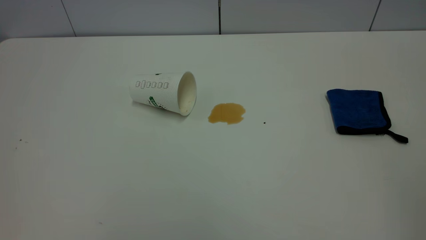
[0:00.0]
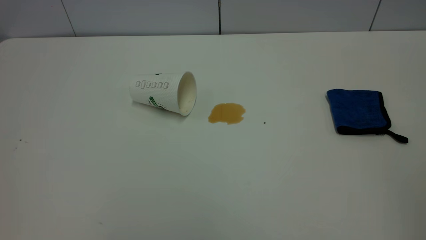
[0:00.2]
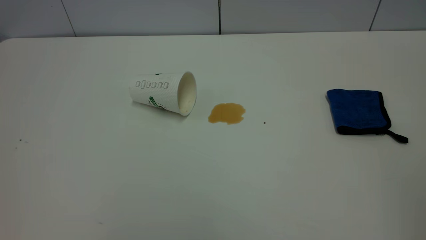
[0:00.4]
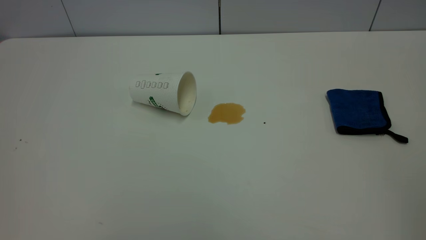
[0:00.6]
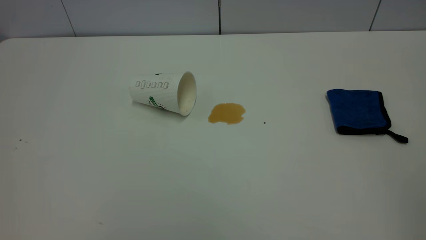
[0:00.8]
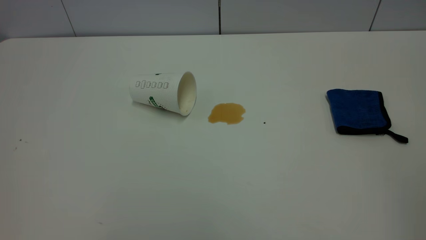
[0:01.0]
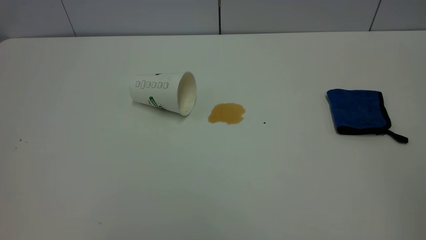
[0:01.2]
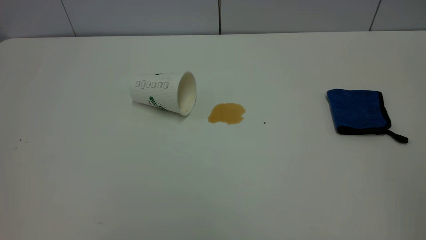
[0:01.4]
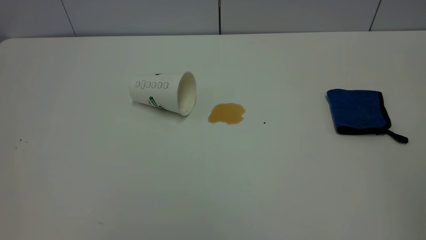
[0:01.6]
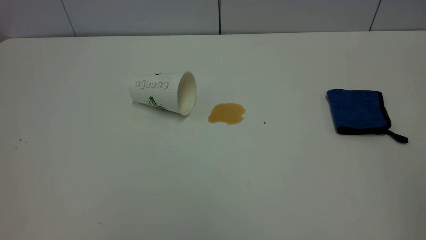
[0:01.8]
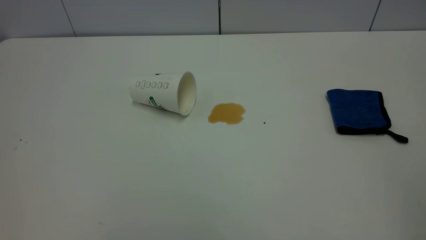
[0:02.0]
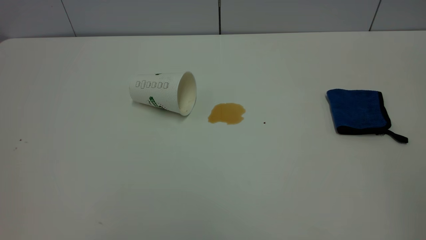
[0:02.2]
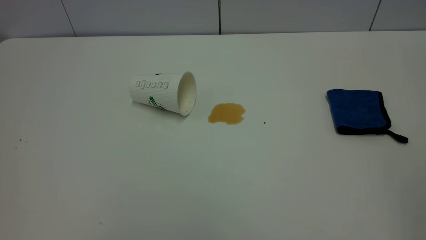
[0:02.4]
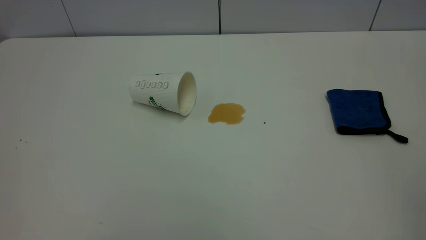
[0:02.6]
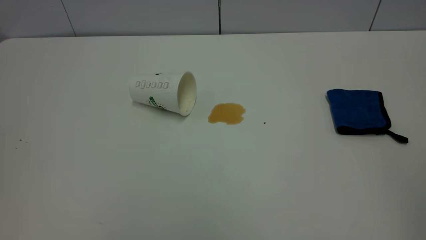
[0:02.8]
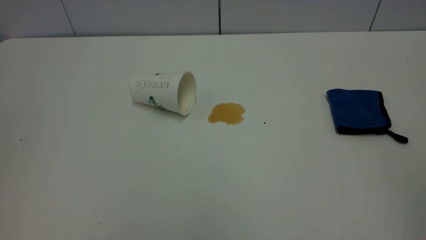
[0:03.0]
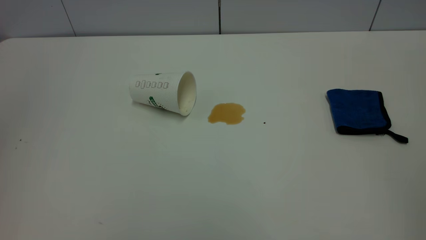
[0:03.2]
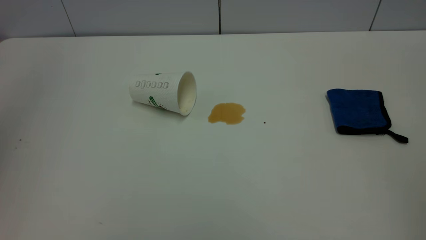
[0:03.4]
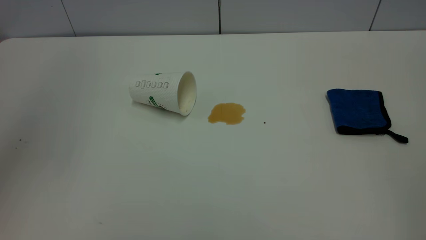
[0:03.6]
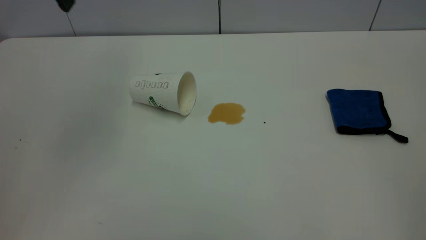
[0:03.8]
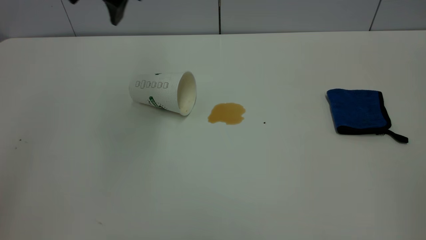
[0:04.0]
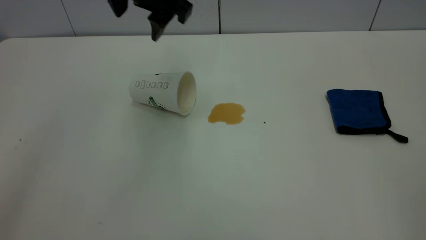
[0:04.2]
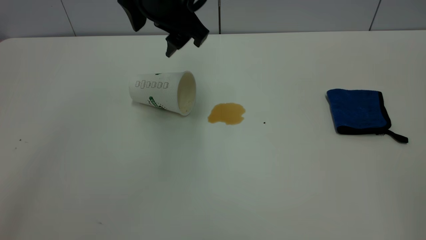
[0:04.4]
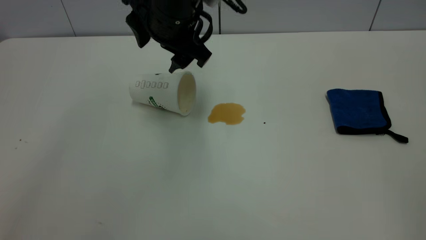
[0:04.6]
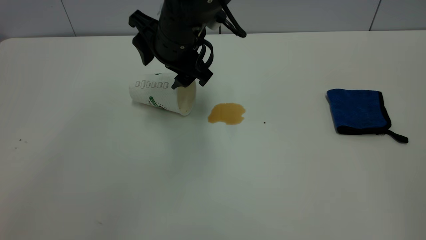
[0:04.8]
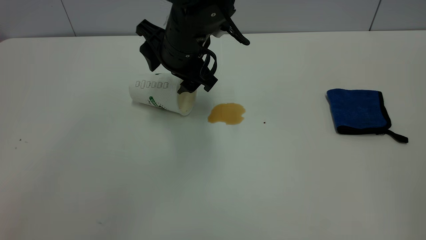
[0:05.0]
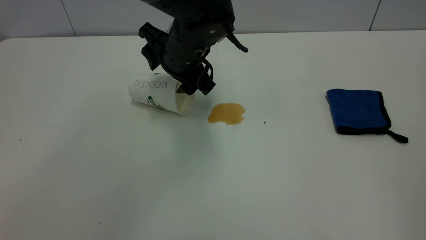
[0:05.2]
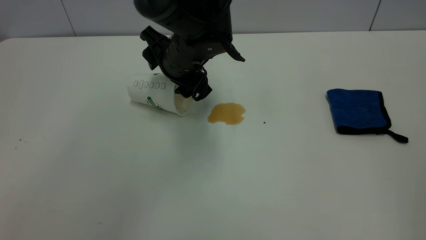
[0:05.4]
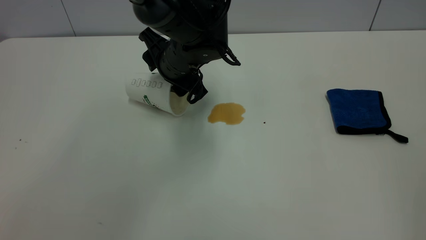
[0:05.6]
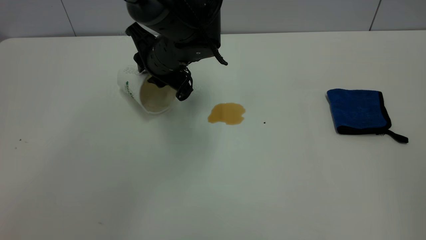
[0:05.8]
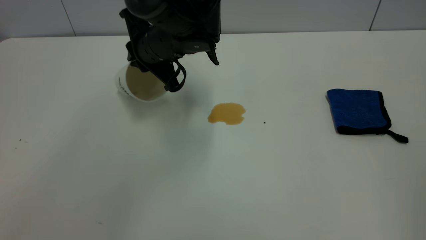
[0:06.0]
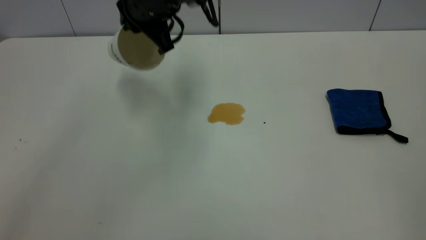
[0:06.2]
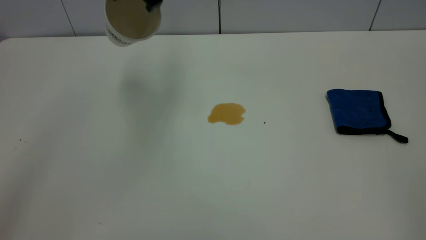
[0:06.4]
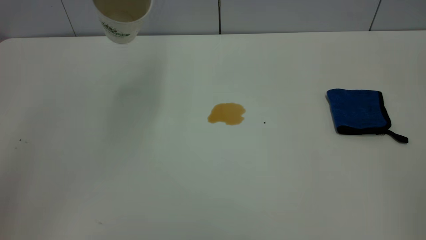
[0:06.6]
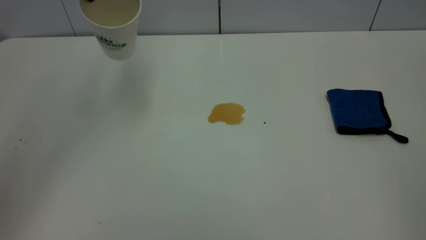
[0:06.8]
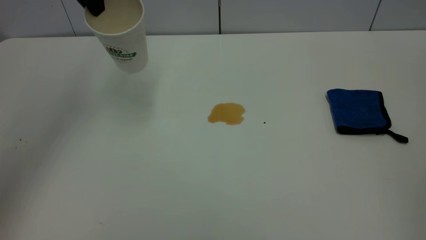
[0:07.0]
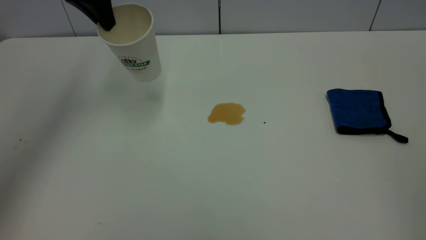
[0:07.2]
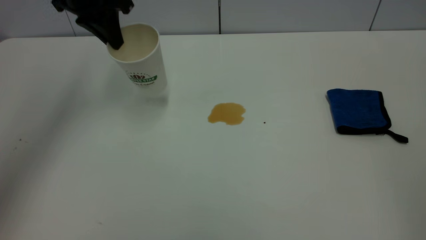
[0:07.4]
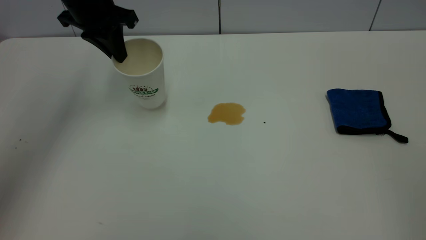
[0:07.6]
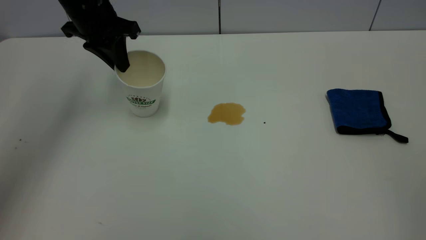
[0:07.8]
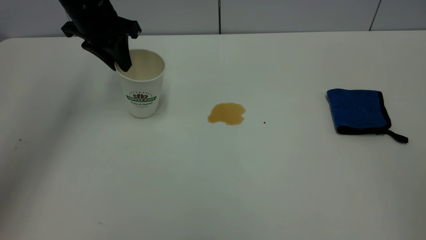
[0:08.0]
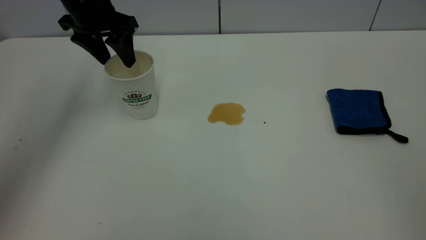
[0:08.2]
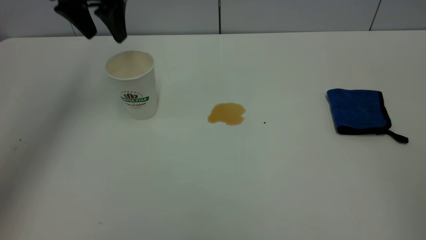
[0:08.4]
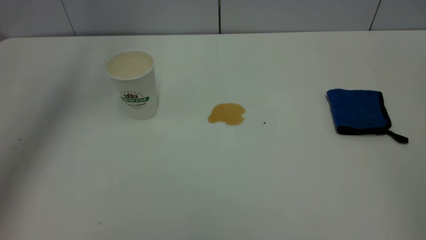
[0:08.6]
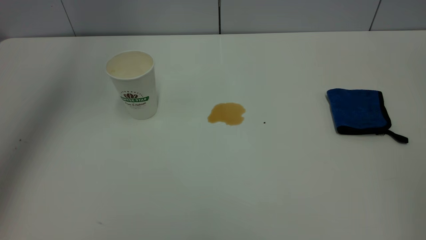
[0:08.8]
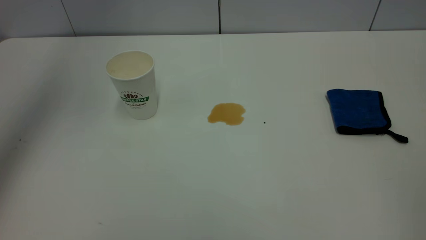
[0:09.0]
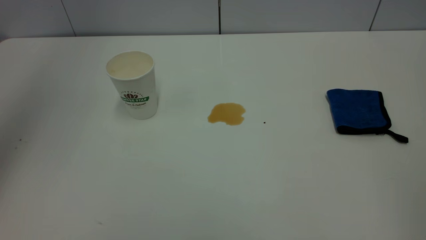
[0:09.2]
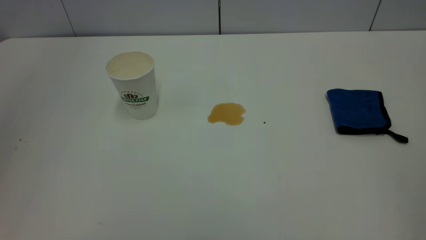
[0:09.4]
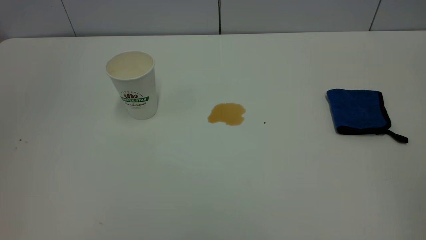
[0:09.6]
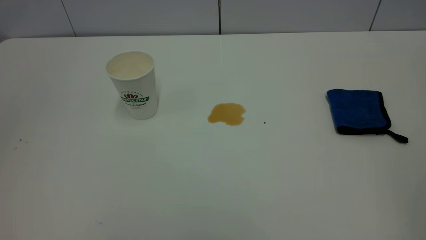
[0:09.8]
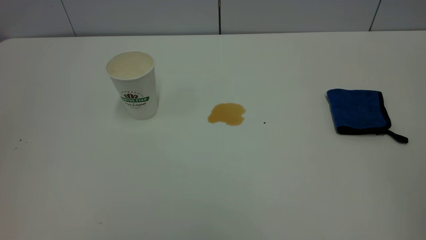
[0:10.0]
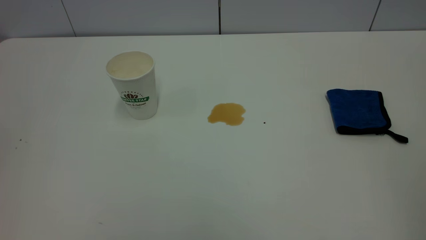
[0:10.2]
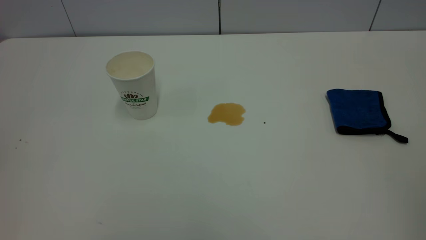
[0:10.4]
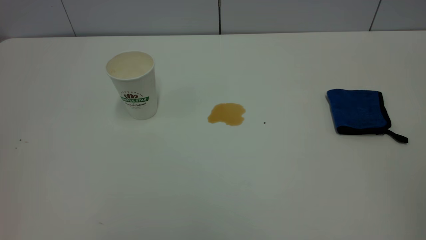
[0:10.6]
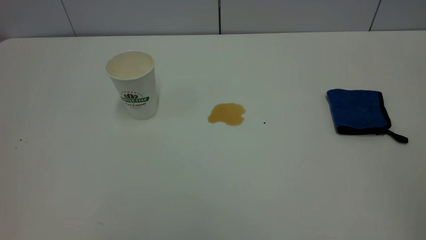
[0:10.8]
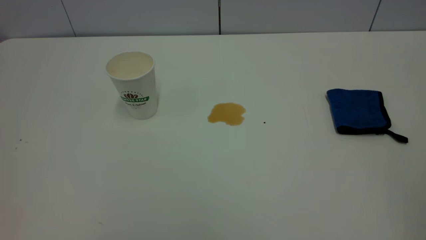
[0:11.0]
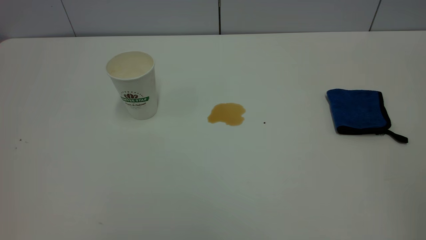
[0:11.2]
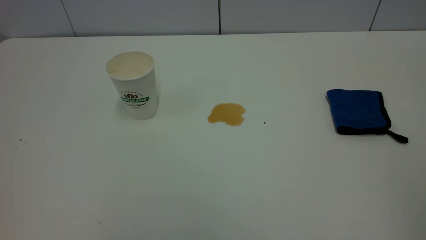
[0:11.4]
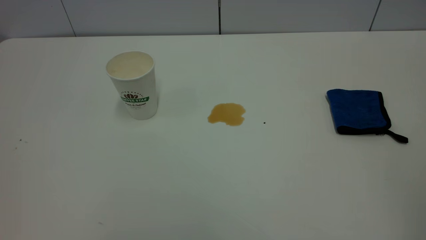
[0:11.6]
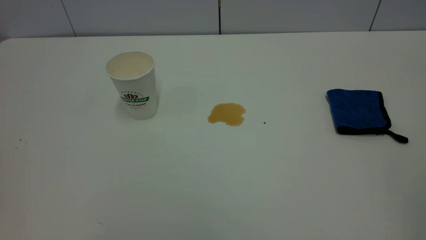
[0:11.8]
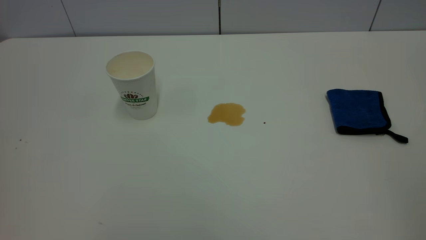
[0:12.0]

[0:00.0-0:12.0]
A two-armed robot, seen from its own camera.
Task of the whole recording: the left gripper pick up the fallen cup and place it upright, the right gripper grasp the blue rag and wipe the tea stain on the table, the right gripper put the blue rag back in its original position.
Step, 0:00.0 to 0:08.2: Stand the paper cup upright.
0:00.0 to 0:01.6: Both grippers stay put.
0:03.0 to 0:04.4: The left gripper is displaced forward, to the right and downward by about 40 cm.
0:04.4 to 0:06.0: The left gripper is displaced downward by some 10 cm, and closes up.
0:06.0 to 0:07.6: The left gripper goes roughly 15 cm to the left, and moves roughly 20 cm upward and comes back.
0:07.6 to 0:09.0: The left gripper heads upward, covering roughly 25 cm, and opens up.
0:09.0 to 0:10.4: The left gripper travels backward by about 35 cm.

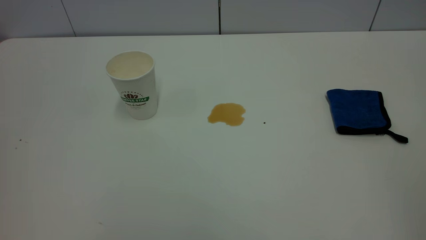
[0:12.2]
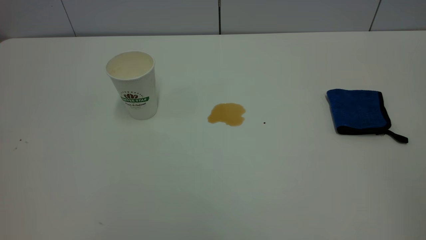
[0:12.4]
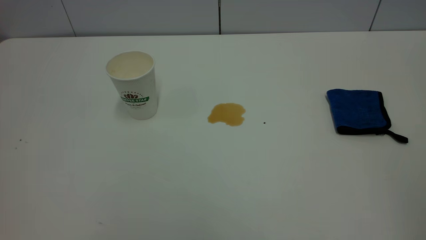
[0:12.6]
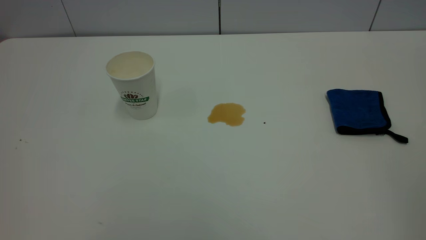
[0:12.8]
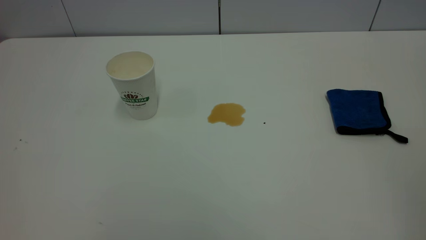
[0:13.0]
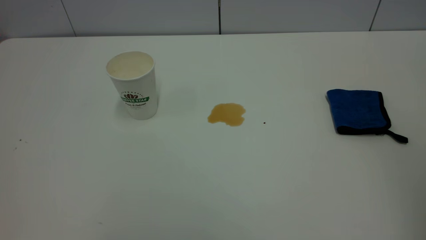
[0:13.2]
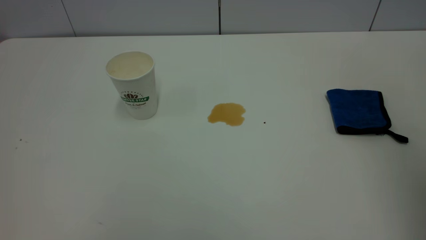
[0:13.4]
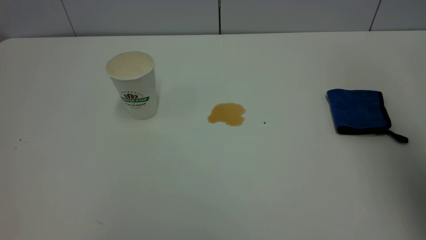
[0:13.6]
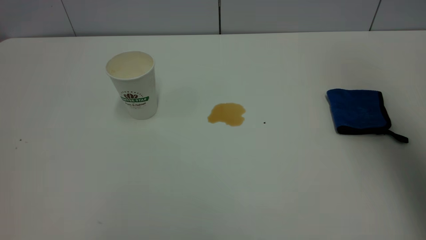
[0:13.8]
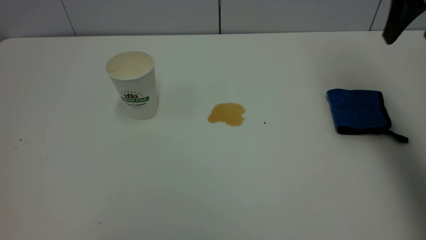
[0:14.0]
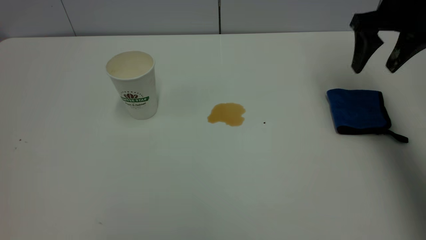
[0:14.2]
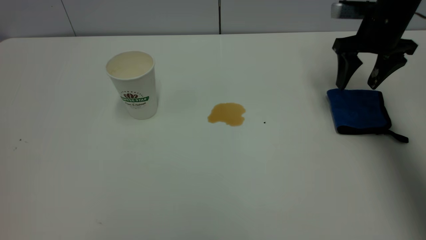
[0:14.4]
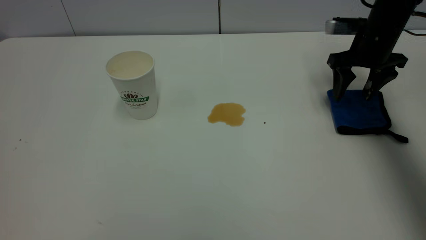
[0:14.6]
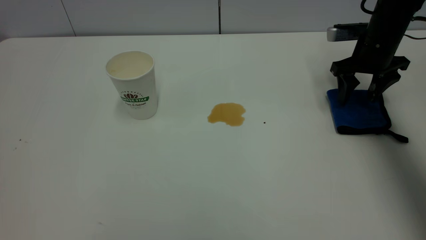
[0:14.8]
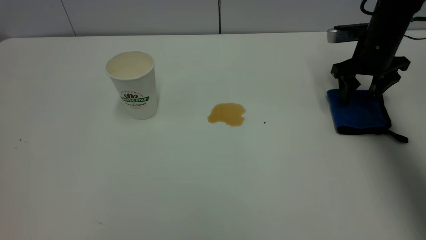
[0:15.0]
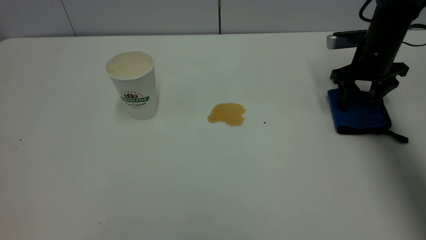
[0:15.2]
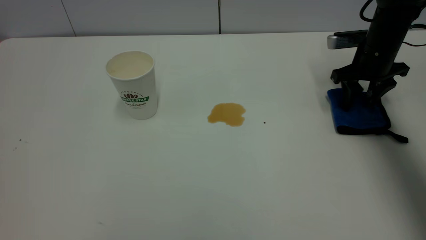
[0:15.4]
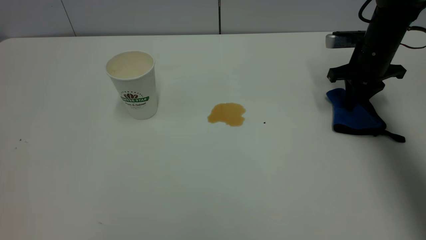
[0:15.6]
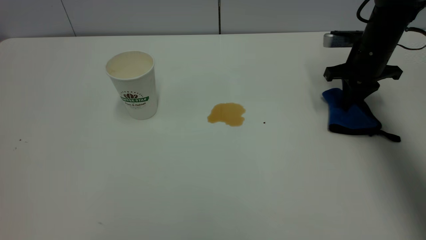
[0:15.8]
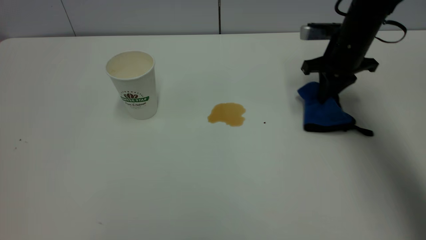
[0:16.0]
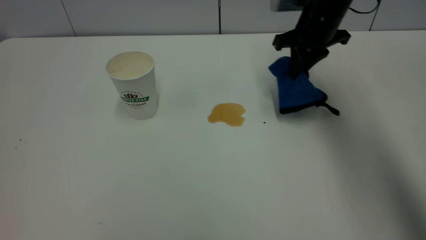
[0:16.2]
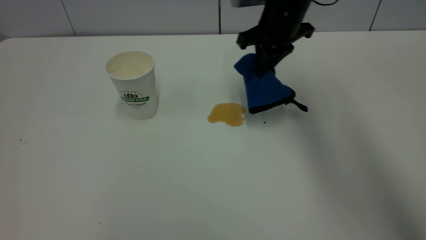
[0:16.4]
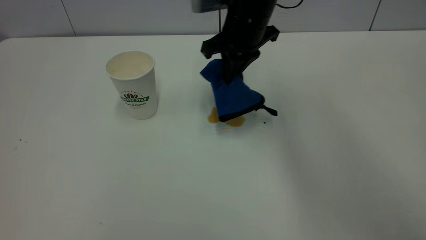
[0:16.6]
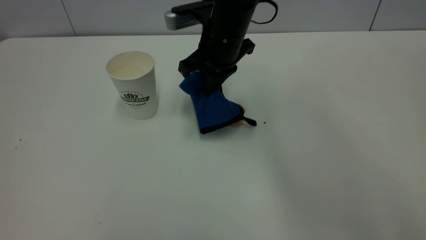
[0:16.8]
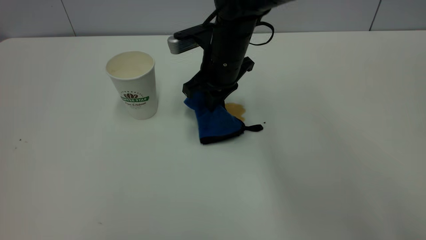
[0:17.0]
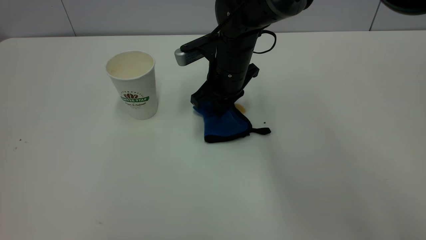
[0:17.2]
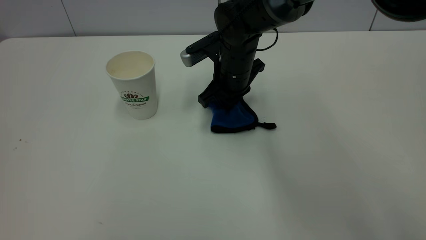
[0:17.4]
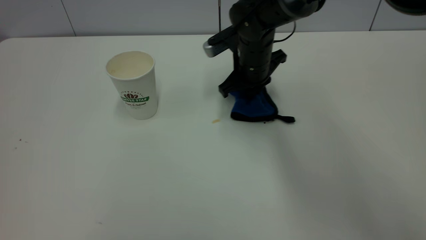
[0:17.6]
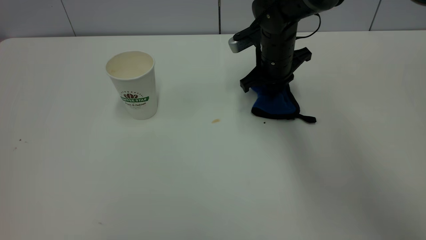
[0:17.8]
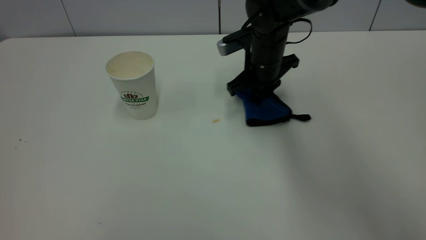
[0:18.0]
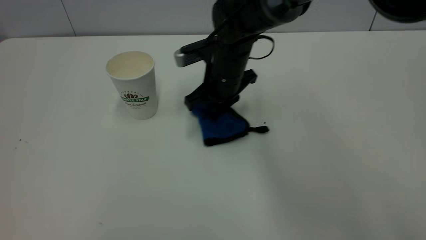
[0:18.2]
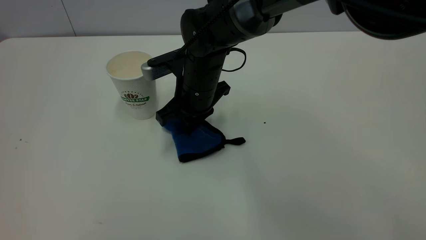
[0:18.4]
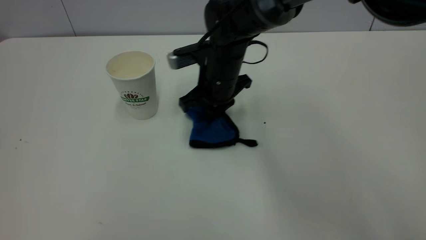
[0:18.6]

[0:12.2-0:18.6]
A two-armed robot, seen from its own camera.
Task of the whole recording: the left gripper pick up the fallen cup and place it upright, the right gripper grasp the blue rag and wipe the tea stain on the table, the right gripper put the blue rag back in its original position.
0:12.2 to 0:13.8: The right gripper moves forward, roughly 30 cm, and opens up.
0:13.8 to 0:15.4: The right gripper shifts about 30 cm downward and forward, and closes its fingers.
0:15.4 to 0:17.0: The right gripper travels to the left by about 25 cm, and closes up.
0:17.0 to 0:18.6: The right gripper moves left and right over some 15 cm, changing direction 2 times.
